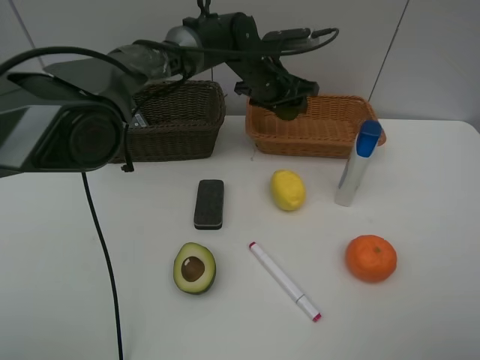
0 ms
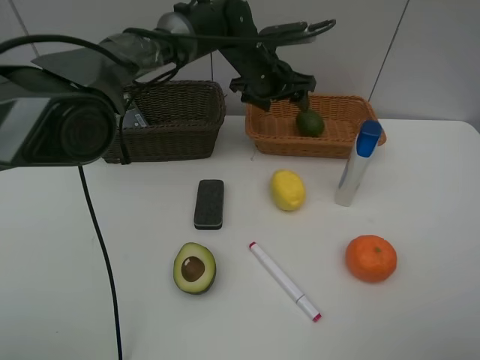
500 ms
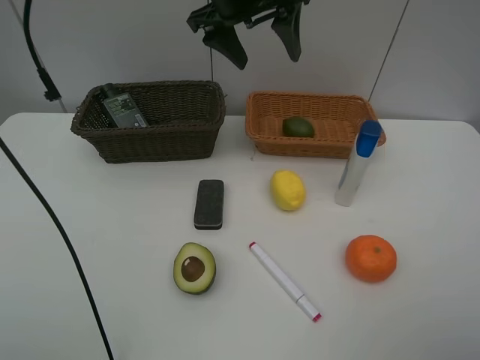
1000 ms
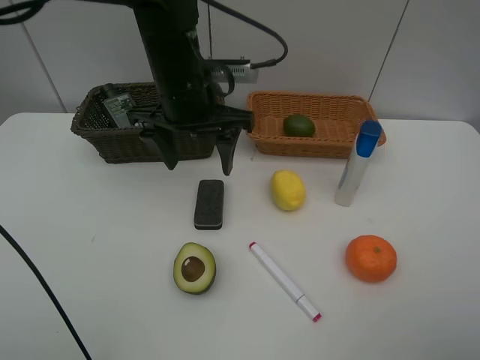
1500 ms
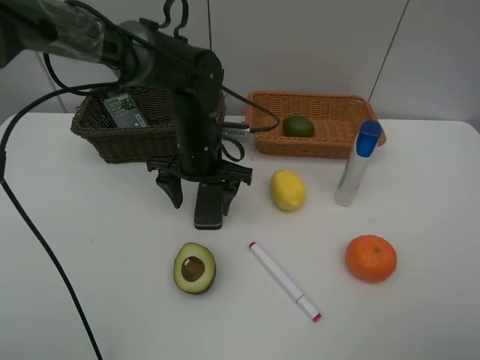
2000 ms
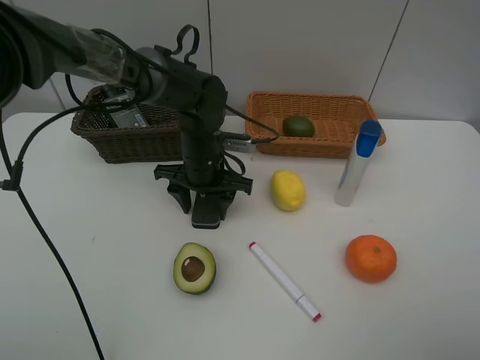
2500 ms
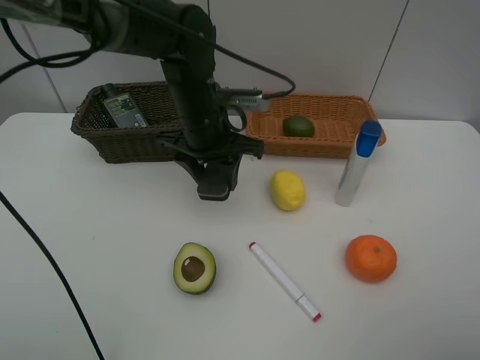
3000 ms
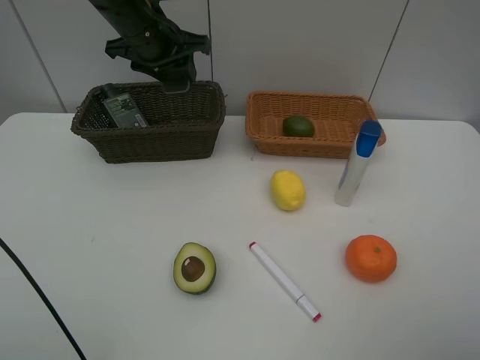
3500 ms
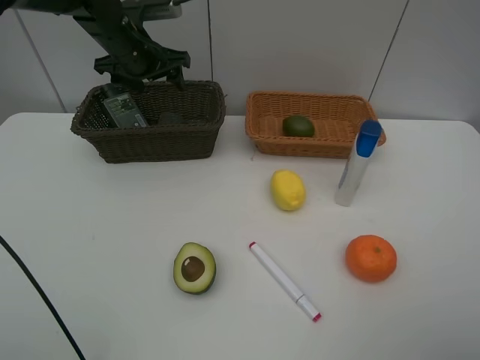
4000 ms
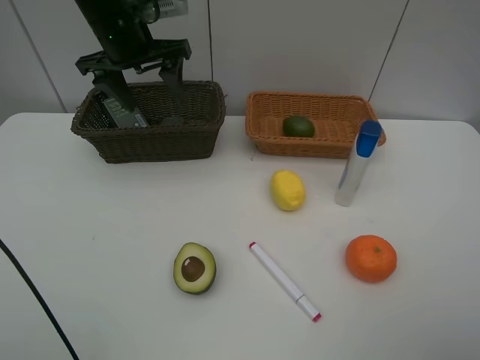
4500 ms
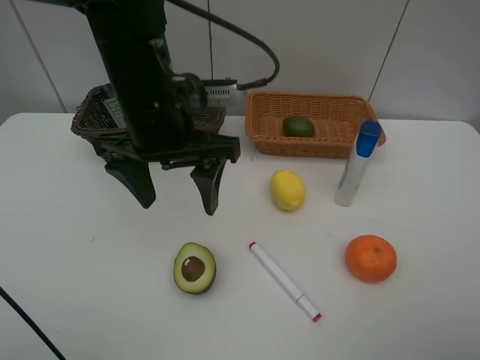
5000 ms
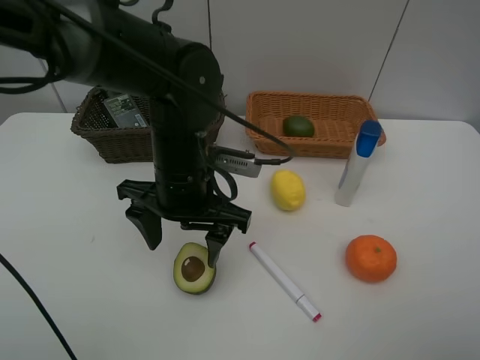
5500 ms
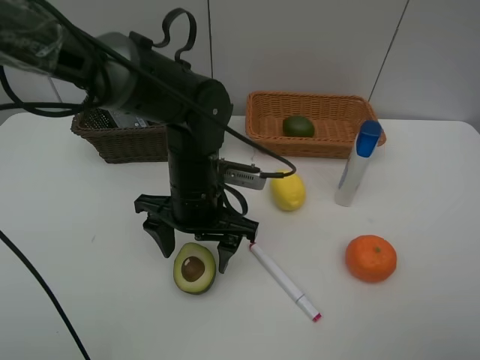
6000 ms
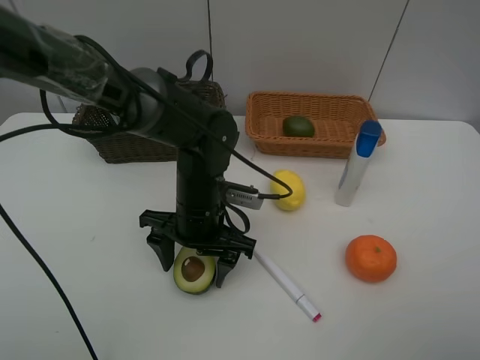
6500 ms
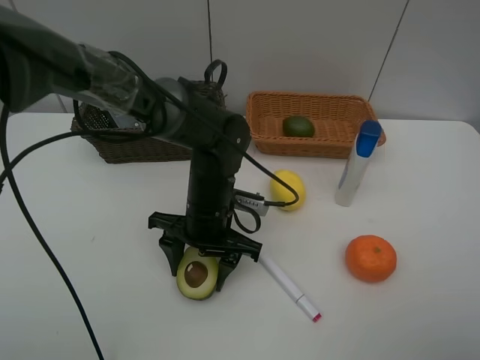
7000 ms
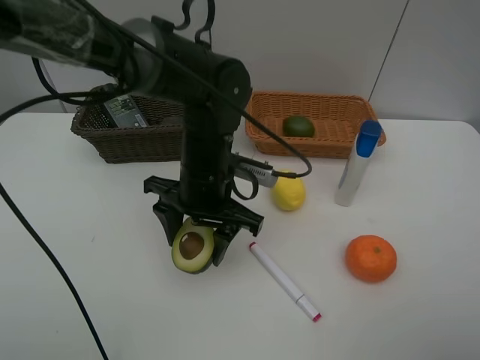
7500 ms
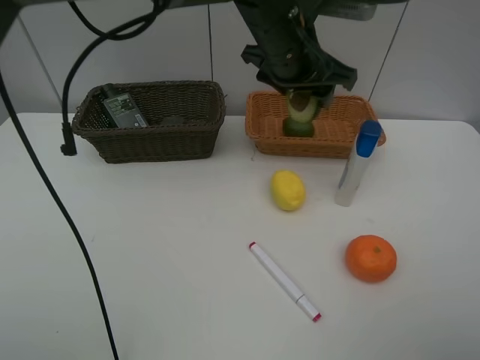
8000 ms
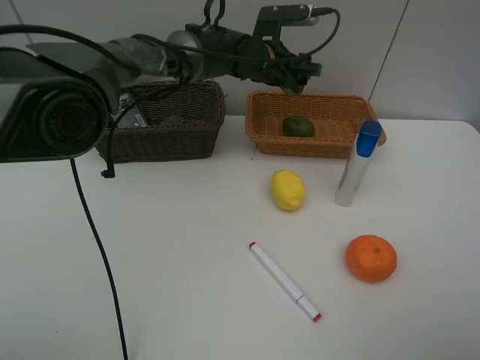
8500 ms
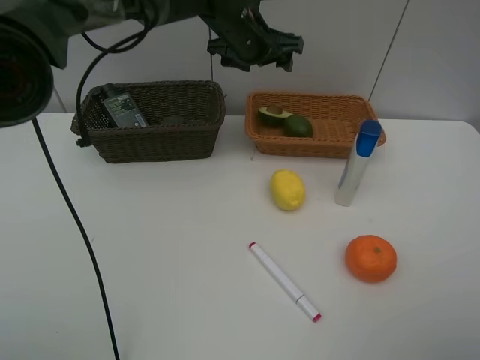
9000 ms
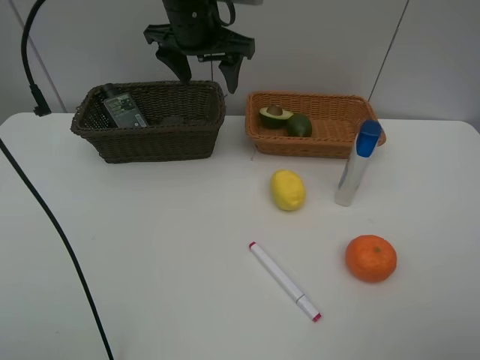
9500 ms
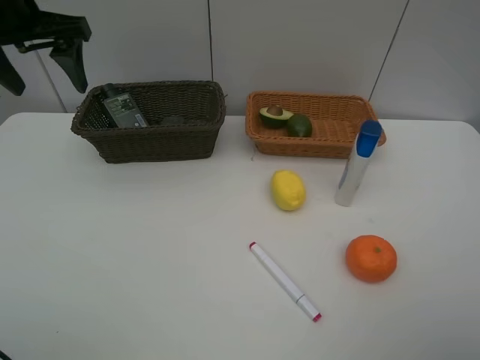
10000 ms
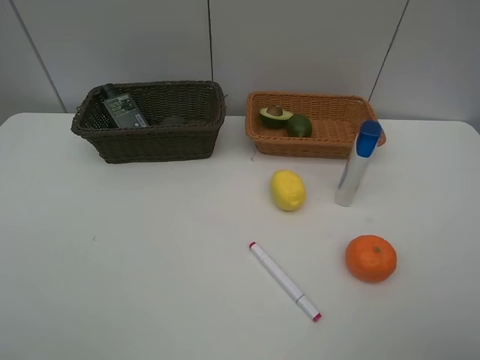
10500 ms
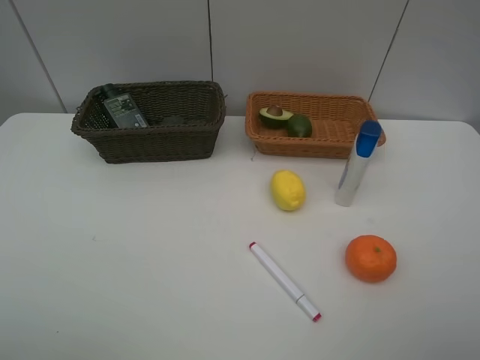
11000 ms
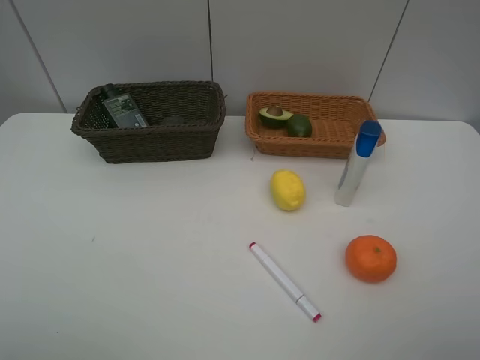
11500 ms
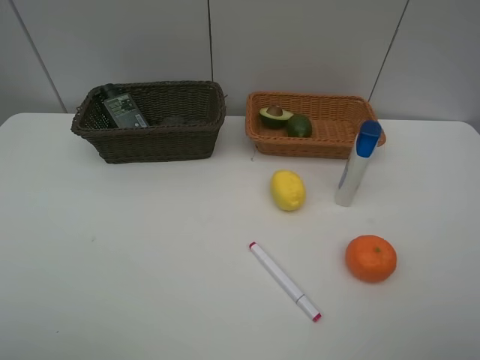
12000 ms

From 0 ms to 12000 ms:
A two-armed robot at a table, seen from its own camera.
Task of the whole recording: Place multiple objects separately in different baskets.
Step, from 500 ms to 2500 ms: Pick up blackboard eraser with left gripper.
Step, from 3000 ms to 4000 ms: Place the blackboard eraser in the dark basket with left gripper.
Step, from 4500 ms to 7000 ms: Pick up the avocado with left gripper.
Step, from 7500 ms to 8500 ms: Place the avocado in the light basket with left gripper.
From 0 ms to 2000 ms: The left gripper heads backward and to the left, covering some 15 cm, and reaches approximately 15 cm upward, then returns.
From 2000 ms to 4000 ms: The left gripper travels to the left, forward and upward by roughly 20 cm, and closes, then reopens.
From 4000 ms to 6000 ms: The left gripper heads backward, to the right and downward, covering approximately 25 cm.
From 6000 ms to 8000 ms: The left gripper heads upward, forward and to the right, covering some 20 cm.
From 8000 ms to 10000 ms: The left gripper goes some 35 cm to the left.
From 10000 ms to 12000 ms: The left gripper is displaced backward by roughly 35 cm.

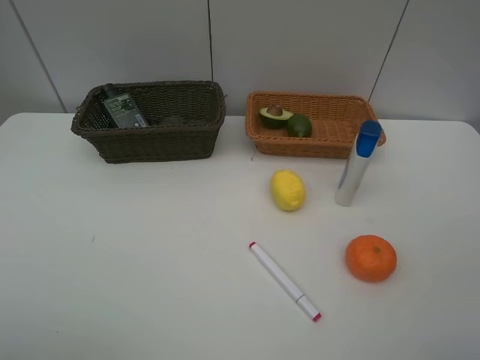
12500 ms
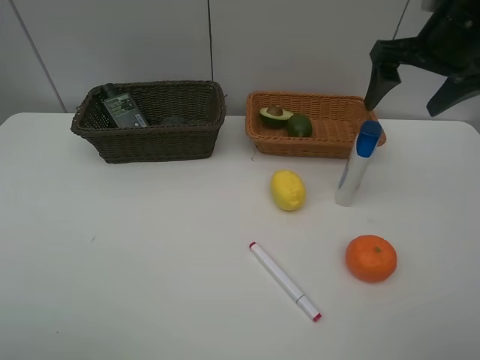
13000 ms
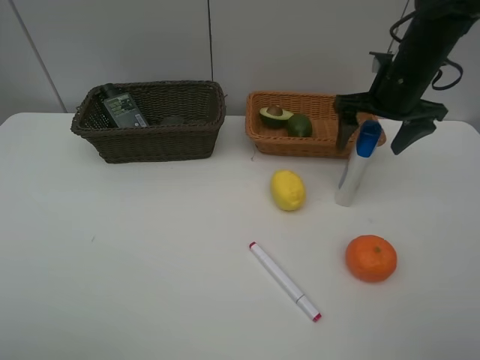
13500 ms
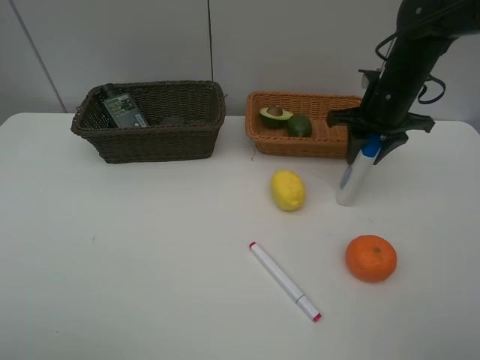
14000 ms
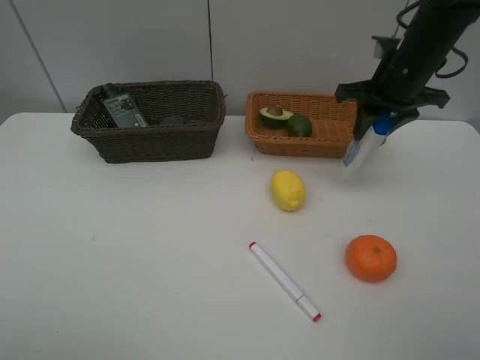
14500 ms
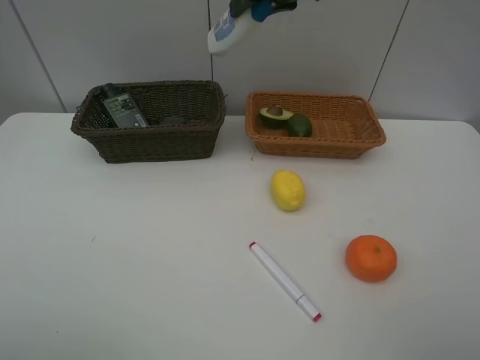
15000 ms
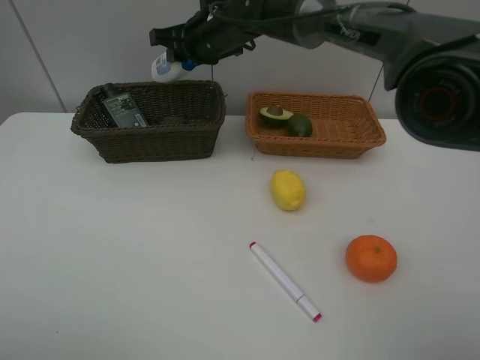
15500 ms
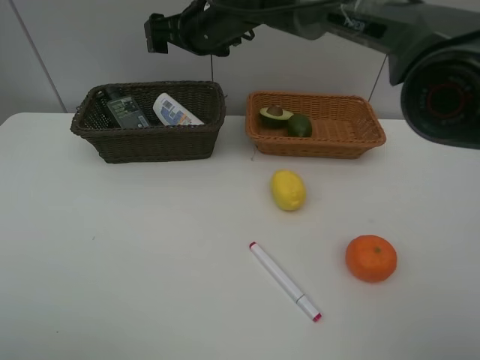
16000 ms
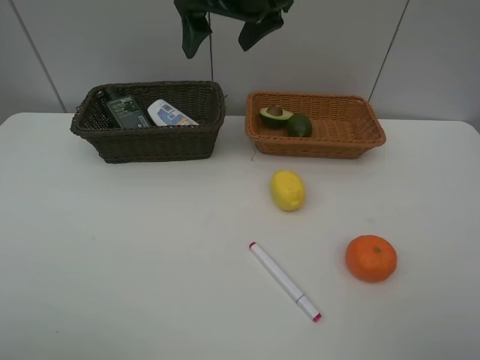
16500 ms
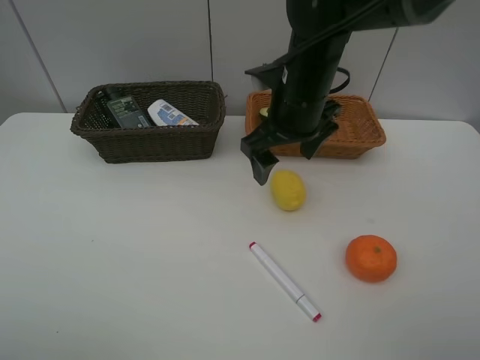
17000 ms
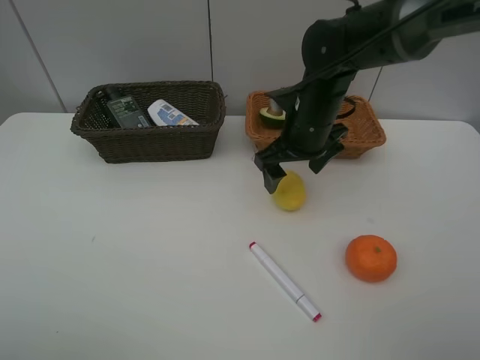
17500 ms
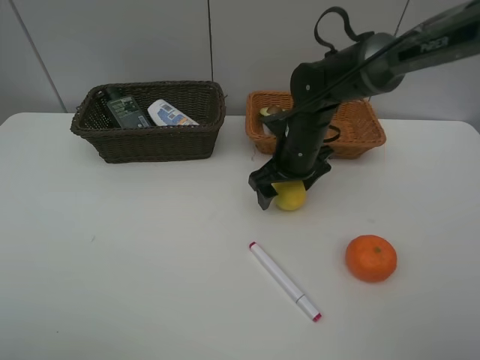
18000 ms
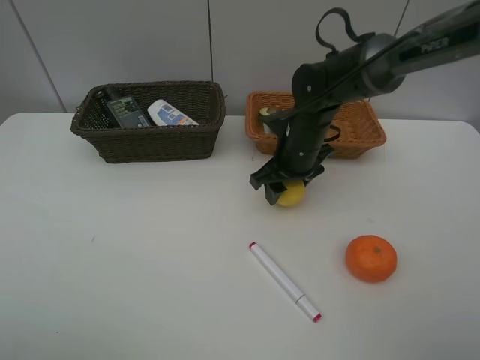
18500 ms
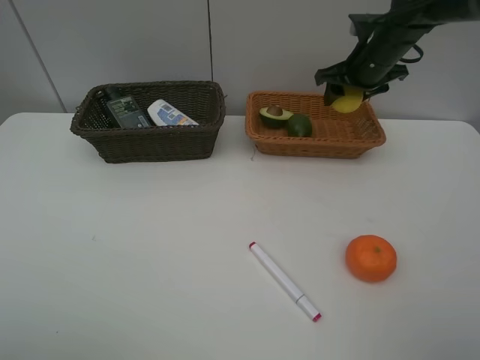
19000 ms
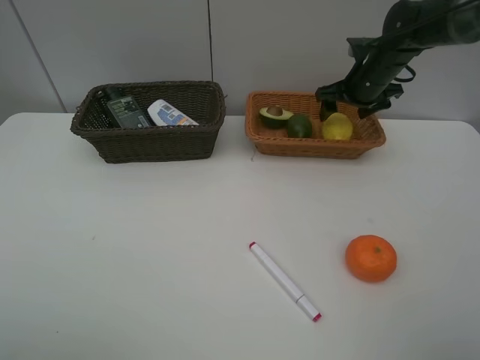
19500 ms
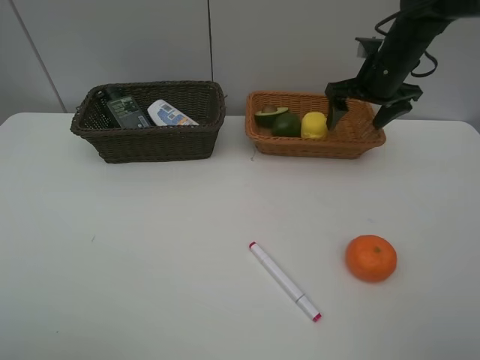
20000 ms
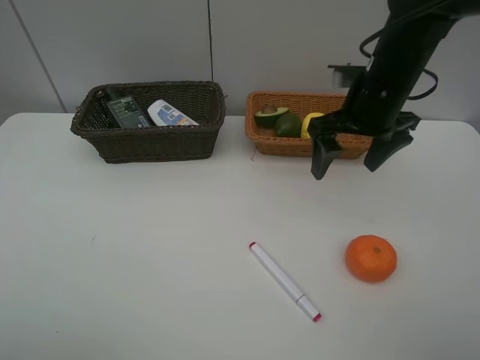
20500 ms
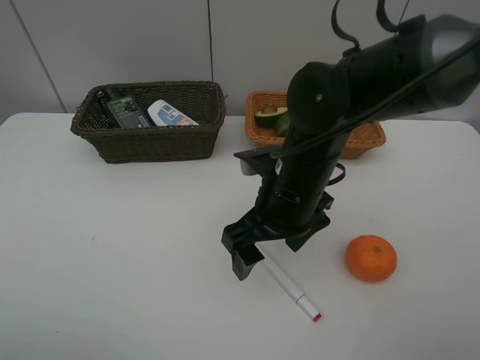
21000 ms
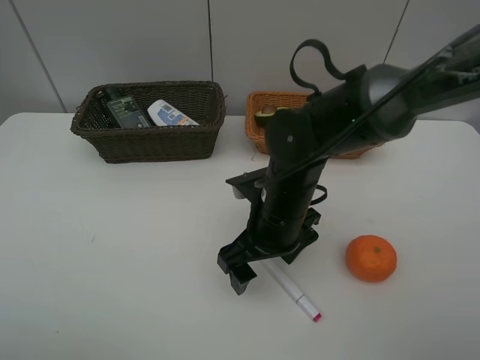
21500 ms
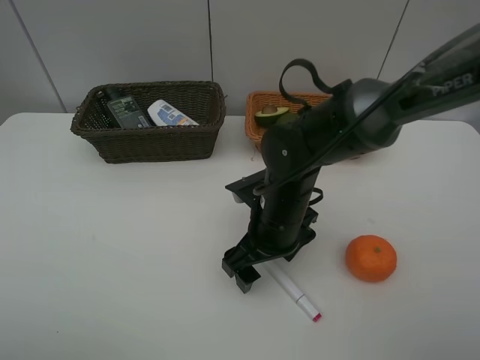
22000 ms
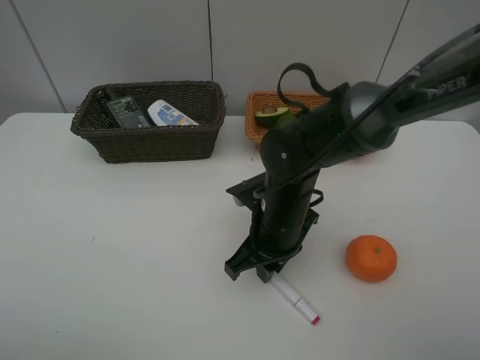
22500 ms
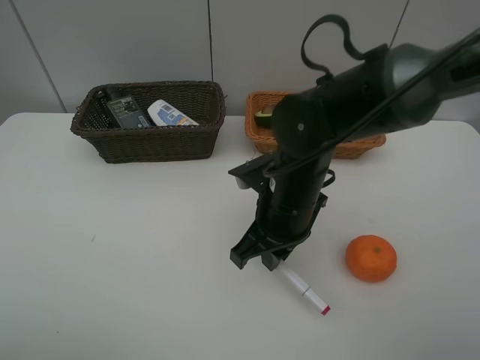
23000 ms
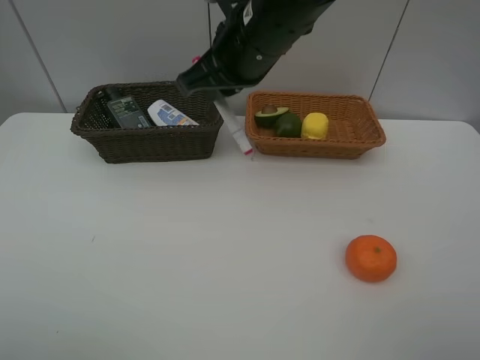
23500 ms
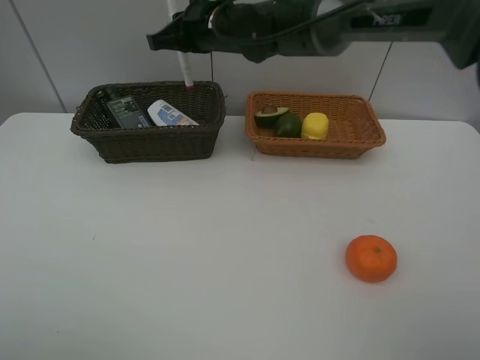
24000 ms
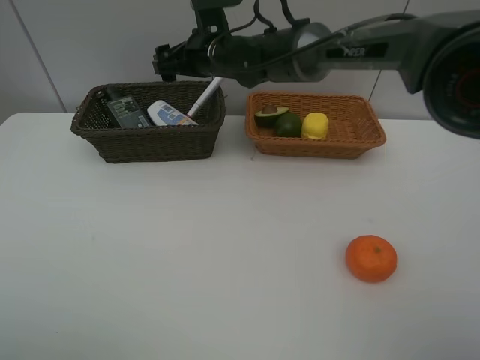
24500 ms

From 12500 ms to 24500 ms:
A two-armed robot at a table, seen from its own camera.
Task of the whole recording: Place multiple objects separately in different baskets.
Step, from 12500 ms to 14500 ms: Pick up the shampoo with right gripper.
Step, from 15000 ms to 15500 ms: Place the shampoo in the dark basket with right gripper.
Step, from 16000 ms to 18500 ms: Pick up the lemon with right gripper.
Step, from 19000 ms to 19500 ms: Place the lemon in the light basket with right gripper.
Step, from 20000 ms to 23000 ms: Pick up the red marker with right gripper.
Step, from 23500 ms to 24500 ms: Place the red marker in the dark basket with right gripper.
From 12500 ms to 14500 ms: The right gripper heads forward, covering roughly 25 cm, and closes its fingers.
From 14500 ms to 16500 ms: The right gripper heads to the left and upward, covering roughly 20 cm, and opens its fingers.
From 16500 ms to 18500 ms: The right gripper travels downward by roughly 20 cm, and closes up.
From 18500 ms to 20500 ms: The right gripper moves upward and to the right, approximately 10 cm, goes forward and returns, approximately 10 cm each way, and opens.
From 20500 ms to 22500 ms: The right gripper goes about 20 cm downward, to the left and backward, and closes its fingers.
From 22500 ms to 24500 ms: The right gripper travels forward, upward and to the left by roughly 25 cm, and opens.

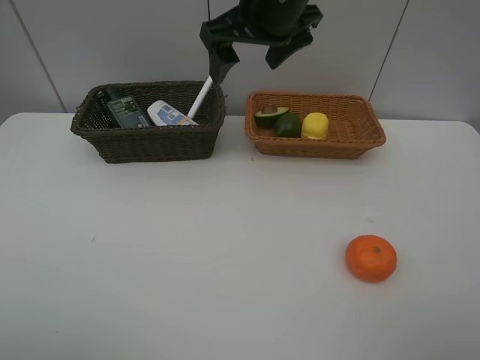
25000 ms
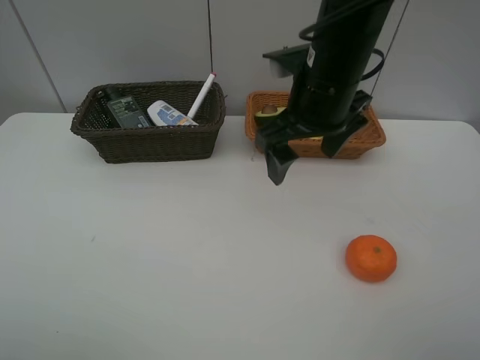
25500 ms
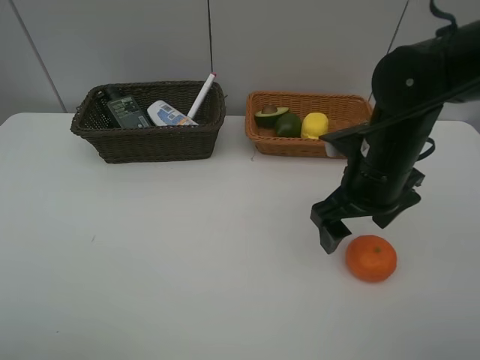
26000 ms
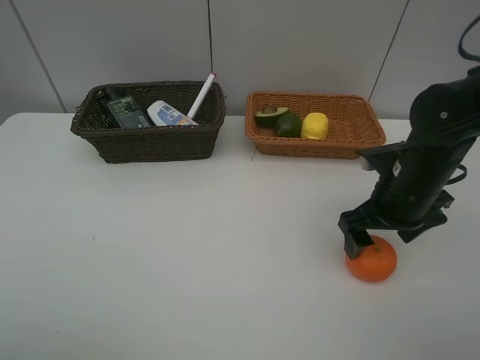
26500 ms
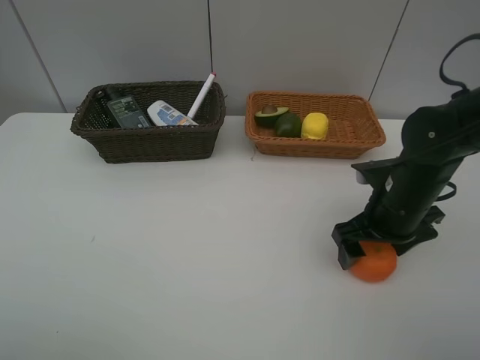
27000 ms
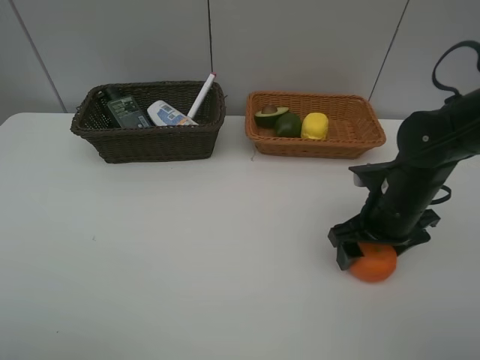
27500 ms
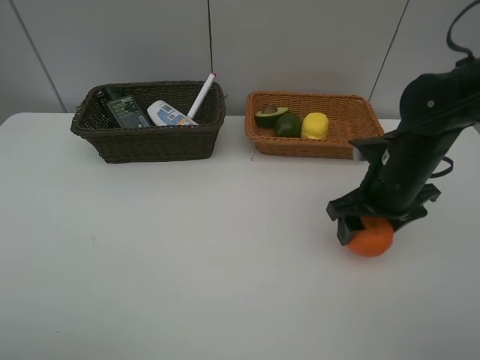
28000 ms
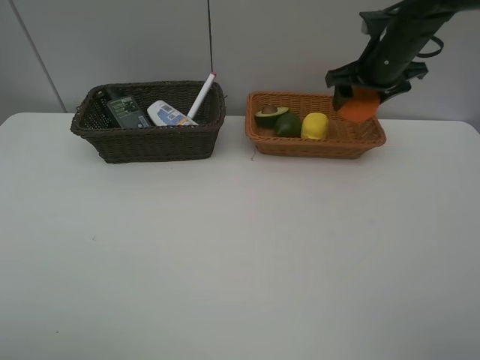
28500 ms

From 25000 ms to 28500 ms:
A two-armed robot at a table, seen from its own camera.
Task of the whole recording: Place multiple objects separately in different baskets.
Step, from 25000 ms to 28000 ms: Pick up the orange with right gripper.
From 25000 ms to 27000 ms: The right gripper moves downward, to the right and backward, some 30 cm.
From 27000 ms to 28500 ms: The right gripper heads forward and upward, covering roughly 20 cm.
